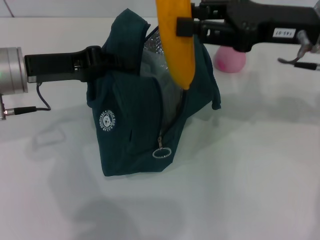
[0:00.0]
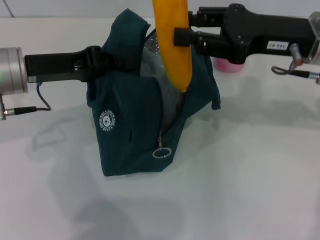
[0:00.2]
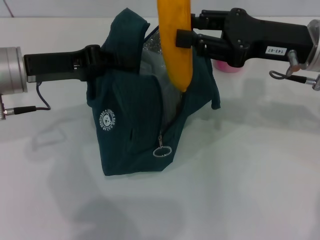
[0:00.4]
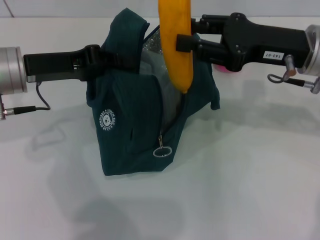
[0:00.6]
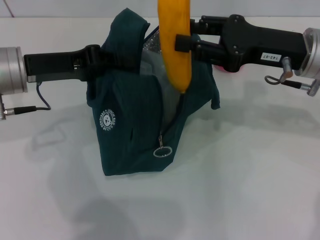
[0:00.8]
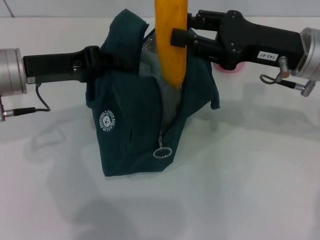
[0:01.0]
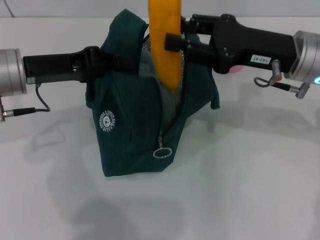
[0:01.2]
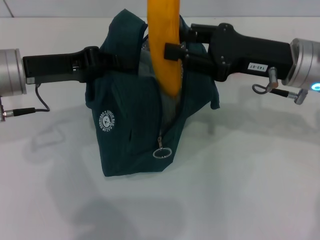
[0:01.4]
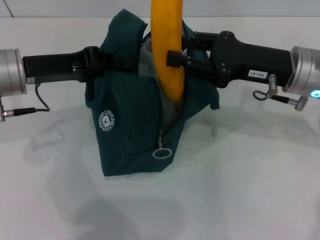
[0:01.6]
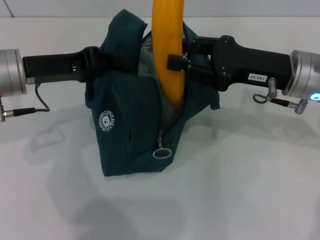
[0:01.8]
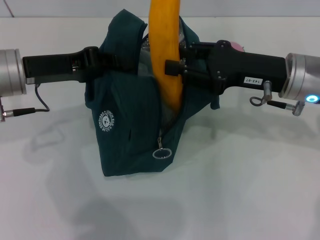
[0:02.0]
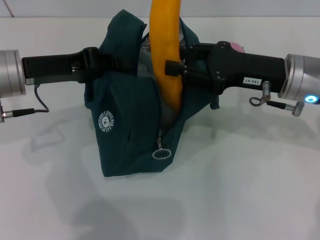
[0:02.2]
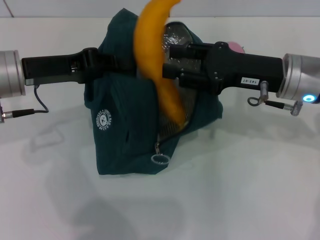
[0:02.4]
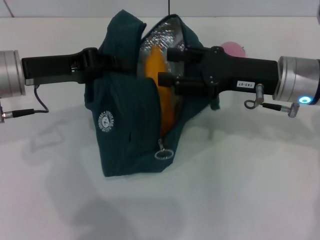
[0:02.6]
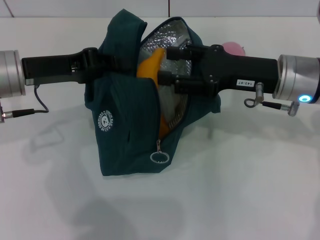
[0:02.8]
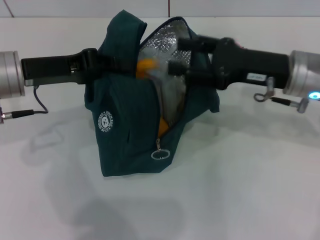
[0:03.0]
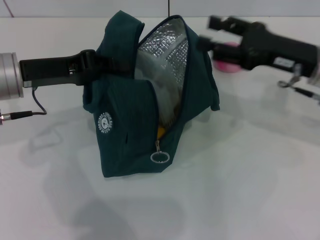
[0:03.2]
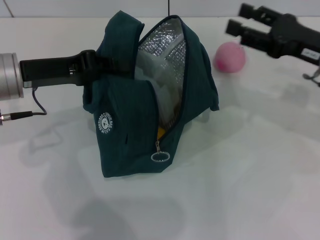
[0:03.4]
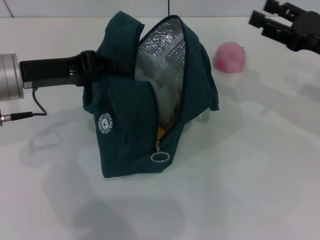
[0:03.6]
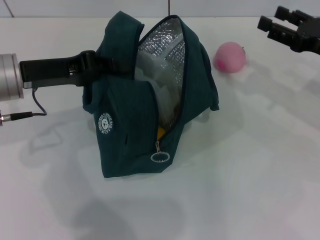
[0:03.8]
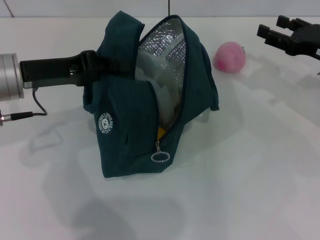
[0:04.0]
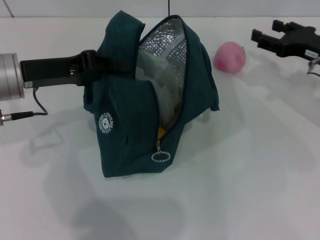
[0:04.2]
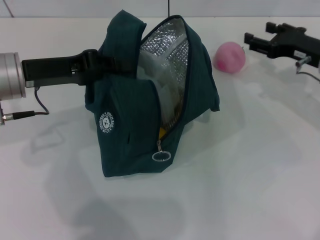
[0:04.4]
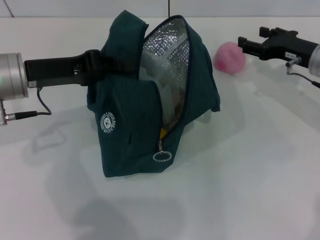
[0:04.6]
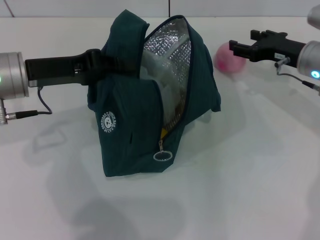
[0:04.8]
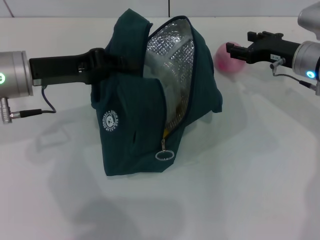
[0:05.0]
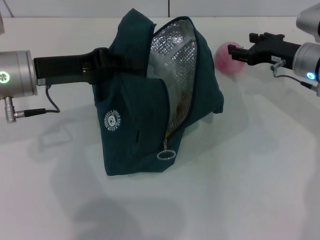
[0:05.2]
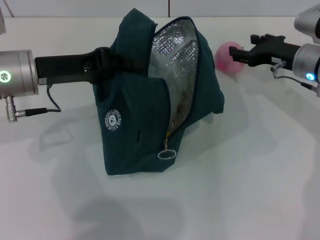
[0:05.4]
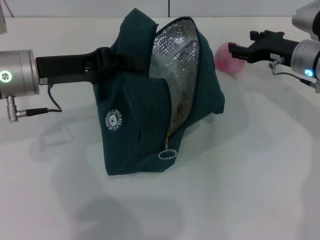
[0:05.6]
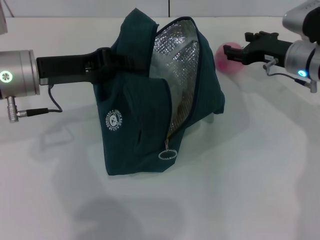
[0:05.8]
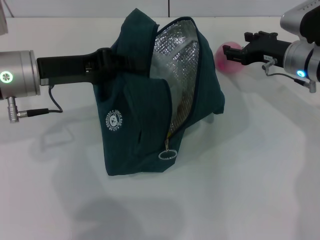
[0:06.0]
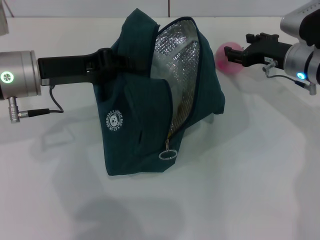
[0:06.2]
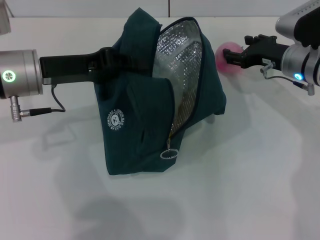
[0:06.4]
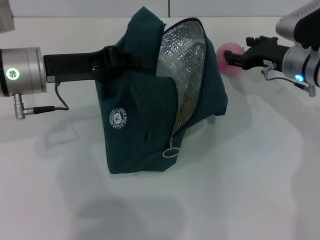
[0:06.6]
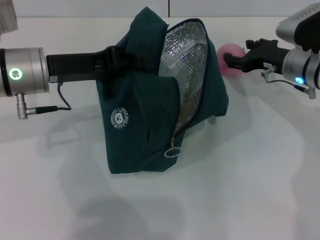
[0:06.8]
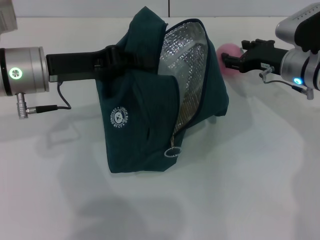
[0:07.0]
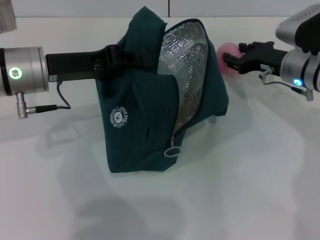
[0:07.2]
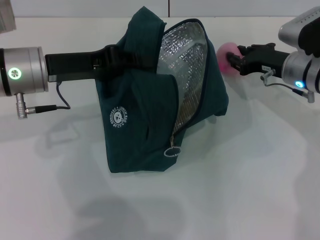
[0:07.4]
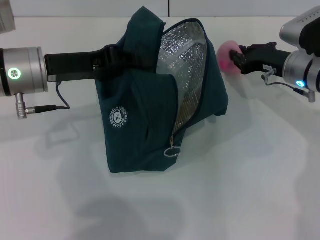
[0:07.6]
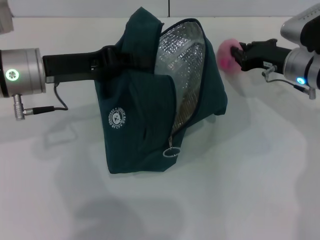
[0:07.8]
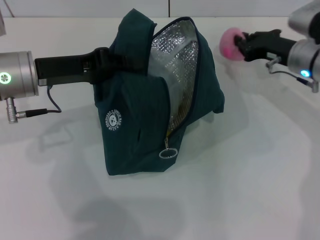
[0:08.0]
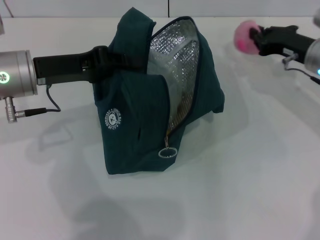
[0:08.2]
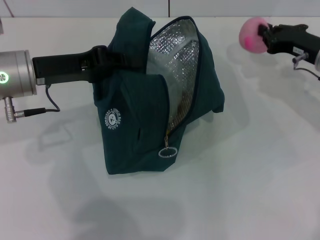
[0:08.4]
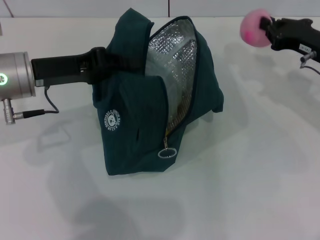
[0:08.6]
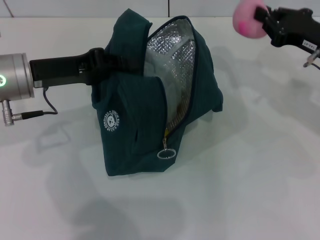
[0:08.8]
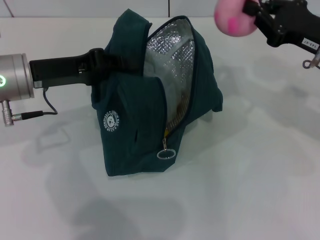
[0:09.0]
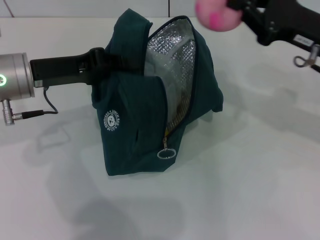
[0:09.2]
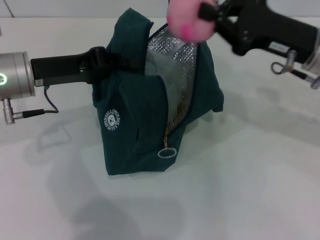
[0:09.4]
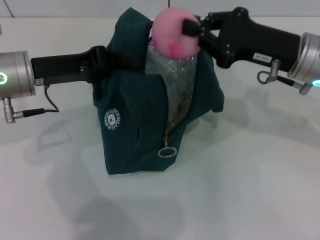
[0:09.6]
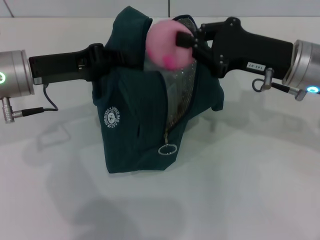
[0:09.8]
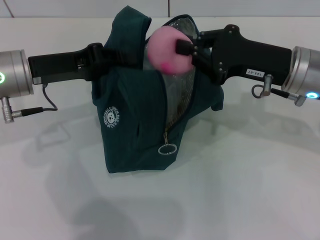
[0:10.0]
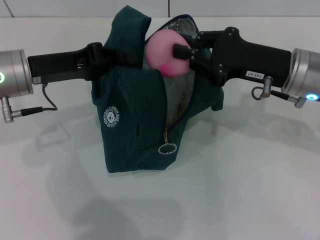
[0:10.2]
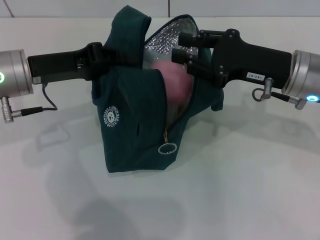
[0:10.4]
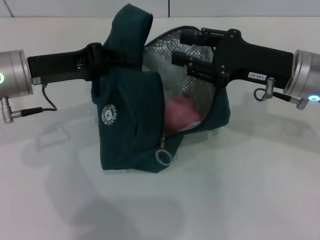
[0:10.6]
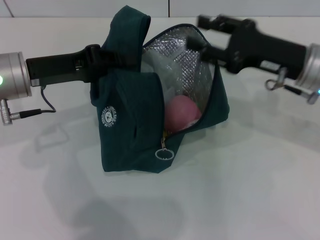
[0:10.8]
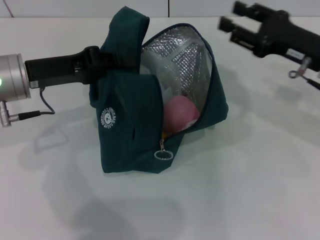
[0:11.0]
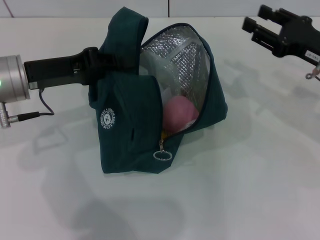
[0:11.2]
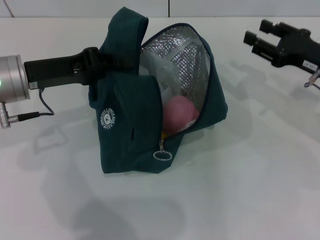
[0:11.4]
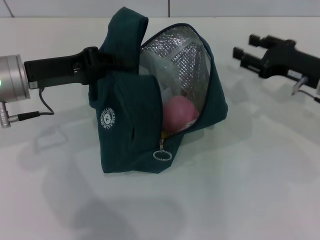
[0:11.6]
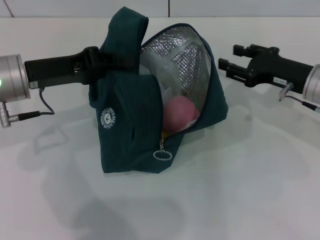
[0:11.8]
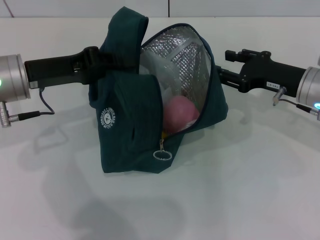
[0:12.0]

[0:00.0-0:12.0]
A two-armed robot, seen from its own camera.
Step, 0:00.0 to 0:02.6: Put the banana into the lunch bag with your right hand.
Step, 0:02.8 to 0:07.6: Grab the peach with your right hand.
0:00.0 to 0:01.6: The right gripper moves downward, some 5 cm.
0:01.6 to 0:03.0: The right gripper opens its fingers.
0:03.0 to 0:04.4: The right gripper travels to the right and forward by some 10 cm.
0:04.4 to 0:06.0: The right gripper moves roughly 5 cm.
0:06.0 to 0:07.6: The right gripper closes up.
0:07.6 to 0:09.0: The right gripper is displaced upward and backward by approximately 10 cm, and closes up.
0:09.0 to 0:10.4: The right gripper moves to the left, some 5 cm.
0:10.4 to 0:12.0: The right gripper travels downward by about 5 cm, and opens up.

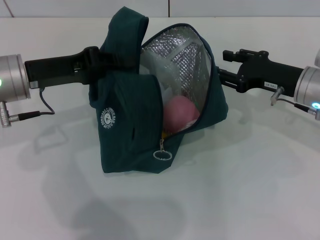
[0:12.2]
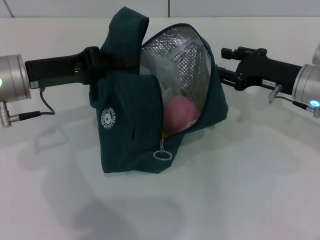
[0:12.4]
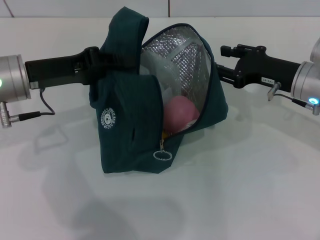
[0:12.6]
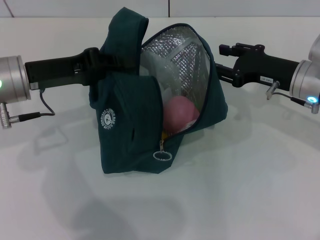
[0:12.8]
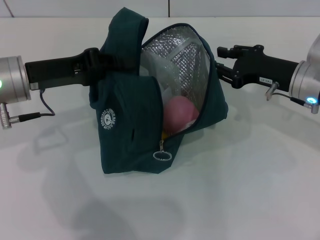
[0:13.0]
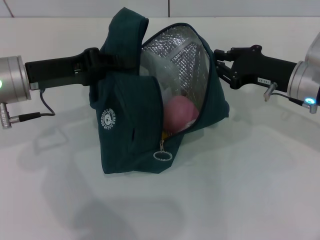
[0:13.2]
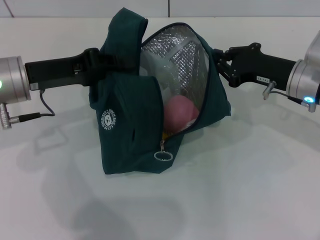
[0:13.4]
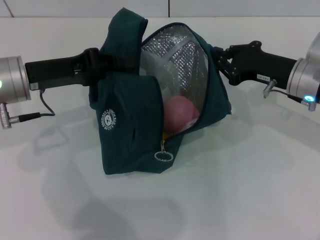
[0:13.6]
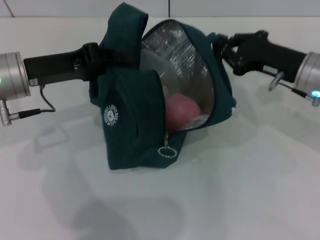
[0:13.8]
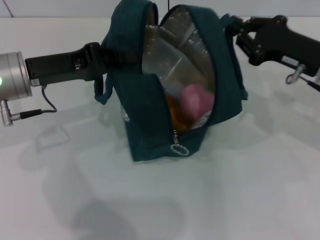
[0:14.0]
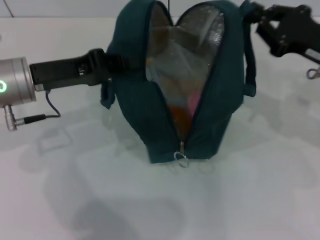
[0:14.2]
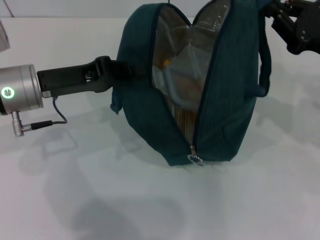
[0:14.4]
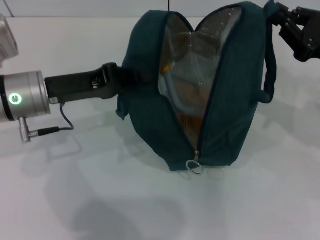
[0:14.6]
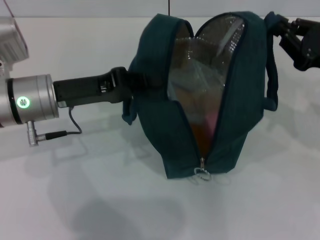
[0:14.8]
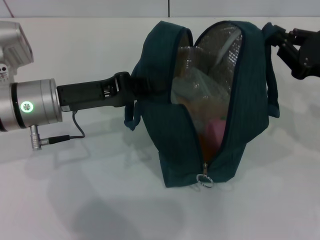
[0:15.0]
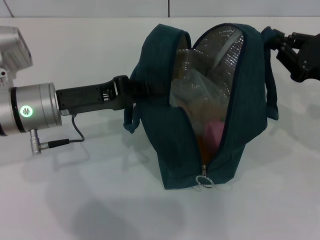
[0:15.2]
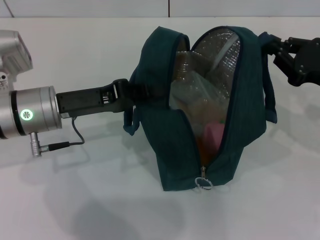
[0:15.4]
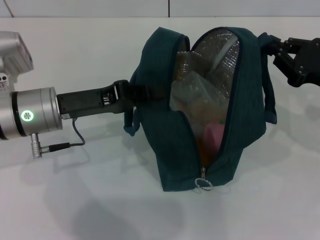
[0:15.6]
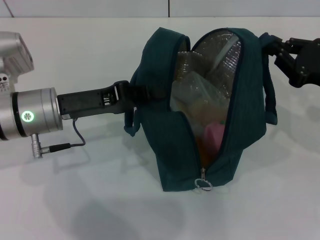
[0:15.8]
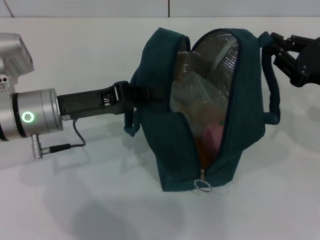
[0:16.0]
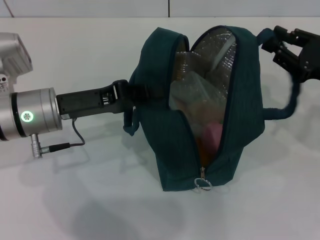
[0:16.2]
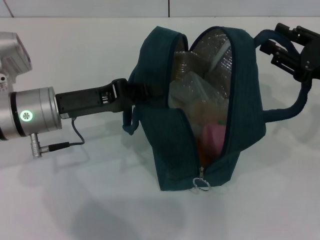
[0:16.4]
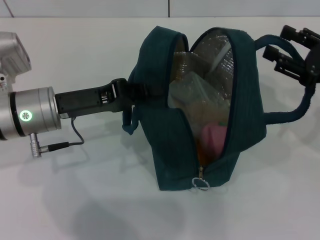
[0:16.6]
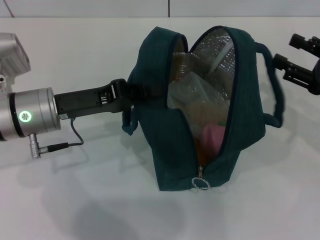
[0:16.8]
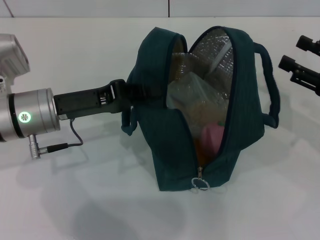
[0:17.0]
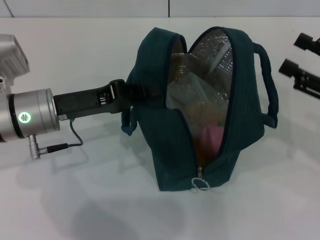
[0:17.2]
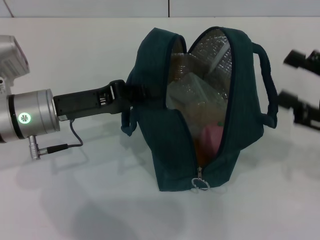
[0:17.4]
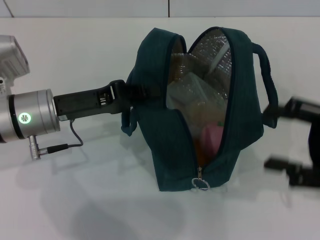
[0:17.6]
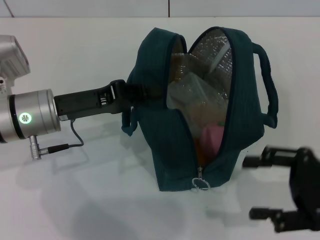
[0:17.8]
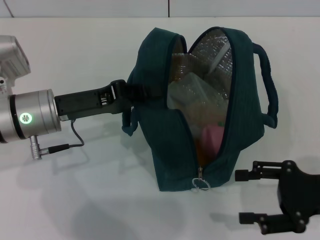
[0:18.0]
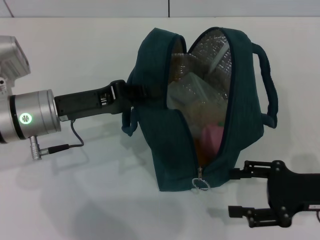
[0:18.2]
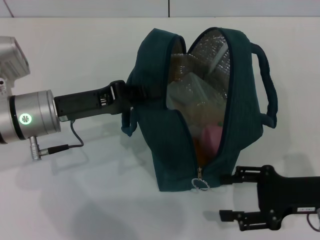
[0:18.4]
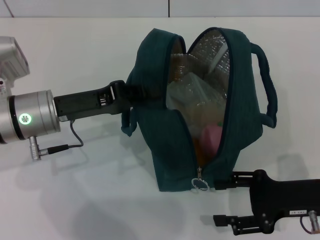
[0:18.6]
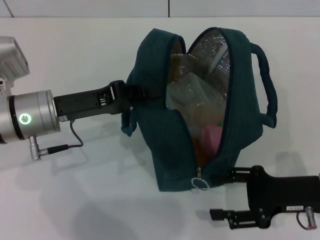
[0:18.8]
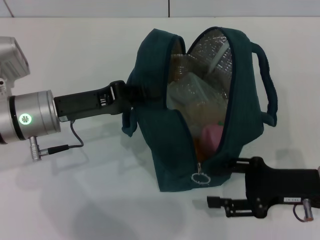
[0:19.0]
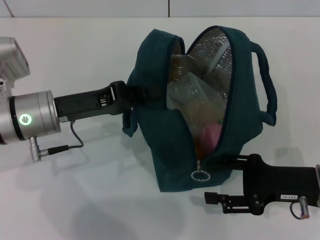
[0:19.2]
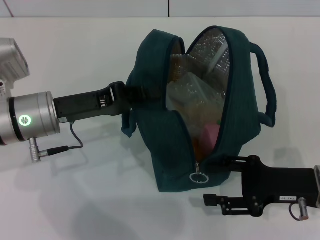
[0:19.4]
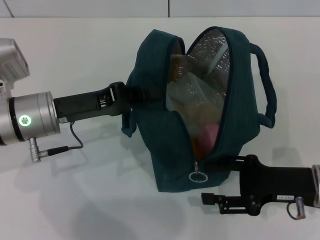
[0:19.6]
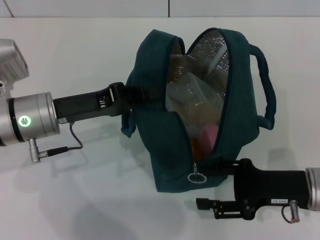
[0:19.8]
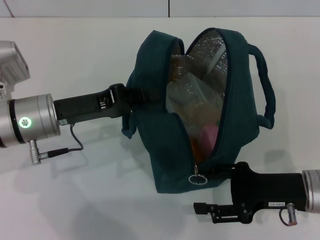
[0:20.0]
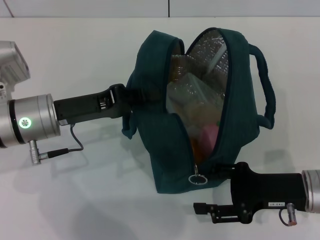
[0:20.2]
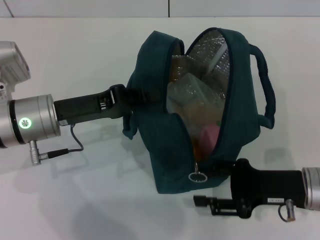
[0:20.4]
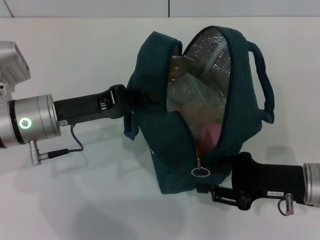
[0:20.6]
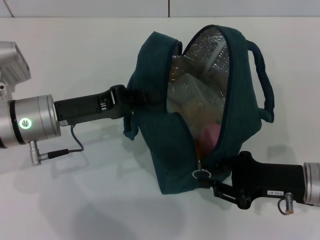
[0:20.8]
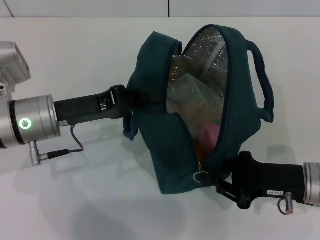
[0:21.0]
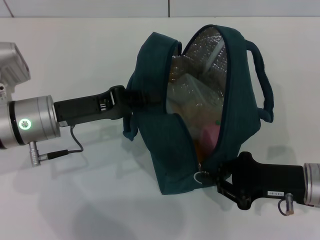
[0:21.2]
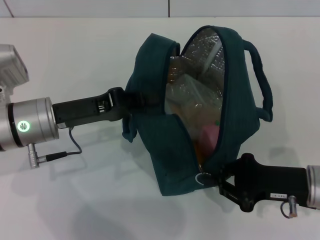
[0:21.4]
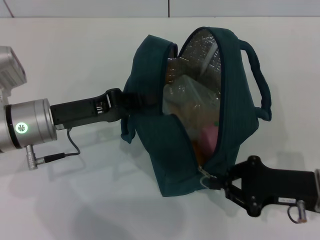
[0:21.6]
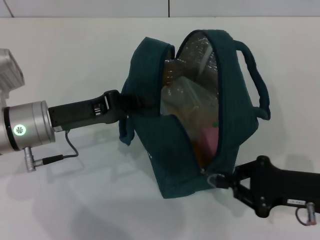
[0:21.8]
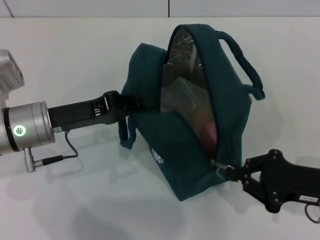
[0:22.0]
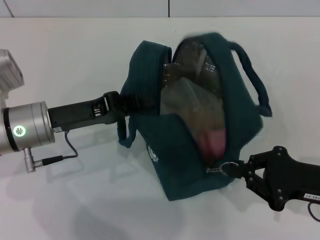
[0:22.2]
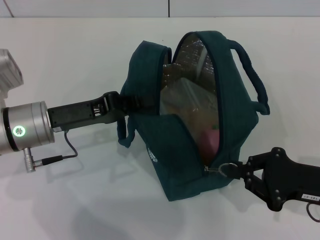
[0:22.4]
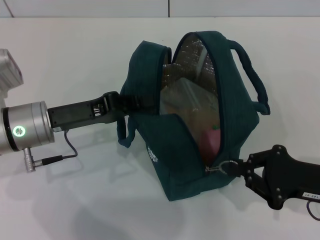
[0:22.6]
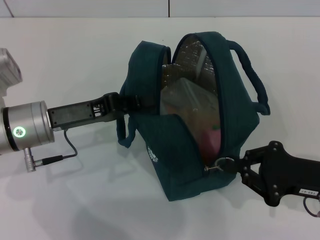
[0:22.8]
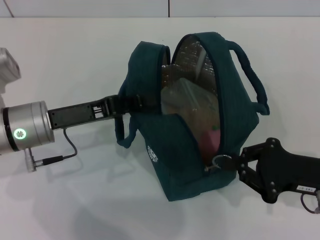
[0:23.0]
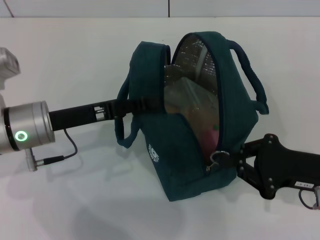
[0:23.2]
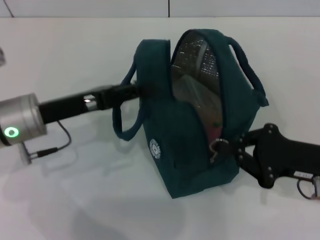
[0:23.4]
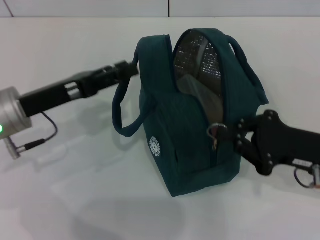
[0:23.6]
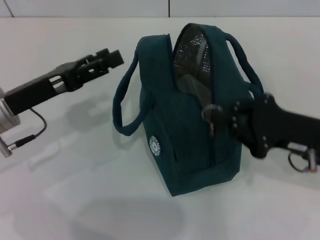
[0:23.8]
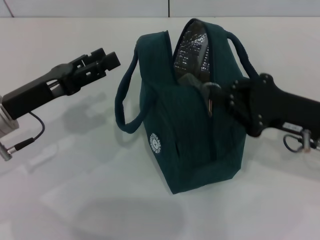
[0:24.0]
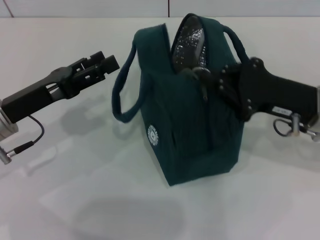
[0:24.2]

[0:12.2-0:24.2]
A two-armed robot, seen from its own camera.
Step, 0:12.2 to 0:16.6: Hold the lunch bag with your right hand.
0:12.2 to 0:13.8: The right gripper closes up.
0:13.8 to 0:15.2: The left gripper moves about 5 cm; the right gripper travels to the right and backward by some 10 cm.
0:15.2 to 0:16.6: The right gripper opens up.
0:16.6 to 0:18.2: The right gripper is displaced backward and downward by approximately 10 cm.
0:18.2 to 0:19.8: The grippers move only a little.
0:19.8 to 0:21.2: The right gripper closes.
0:21.2 to 0:22.6: The grippers move only a little.
0:22.6 to 0:24.2: The right gripper moves forward and upward, roughly 10 cm; the left gripper opens.
